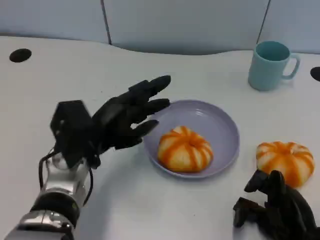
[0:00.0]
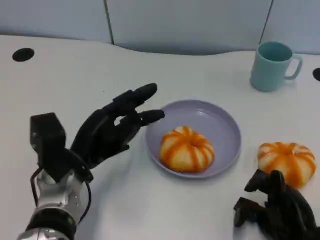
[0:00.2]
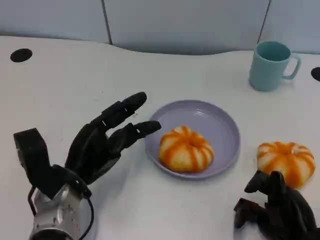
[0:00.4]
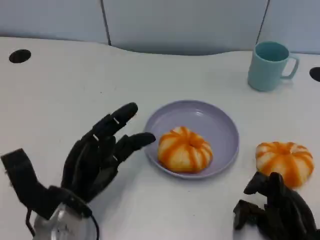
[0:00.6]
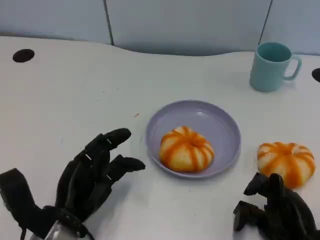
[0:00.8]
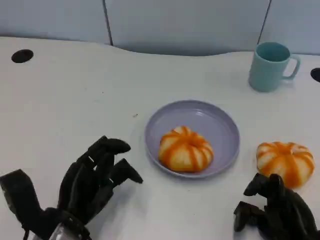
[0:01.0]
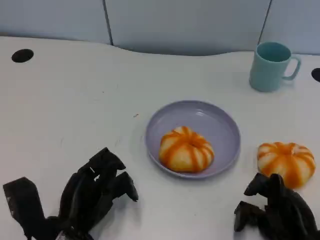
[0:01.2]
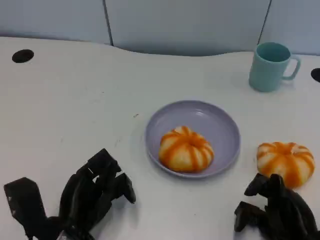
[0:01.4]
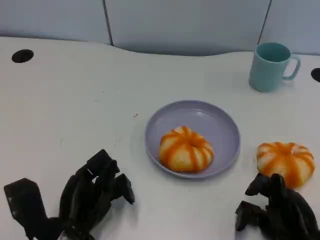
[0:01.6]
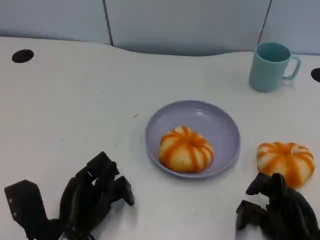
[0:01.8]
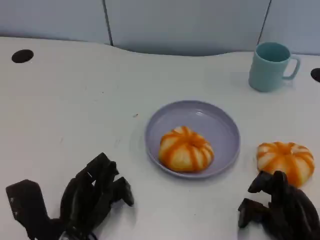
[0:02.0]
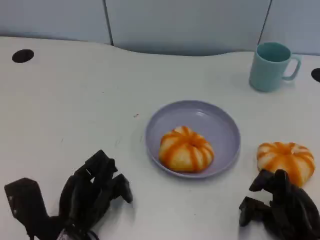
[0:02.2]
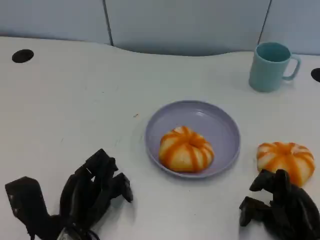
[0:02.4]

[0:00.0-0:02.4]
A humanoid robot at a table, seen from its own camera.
Task of the whole recording: Grasp the bread from the table and place it into the plate.
0:00.0 to 0:01.2: The left hand heads backward and downward, covering some 10 cm.
0:01.2 to 0:02.4: The hands make only small movements.

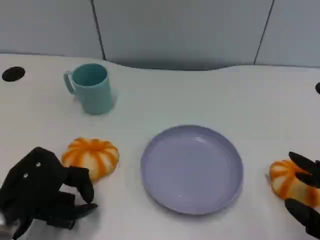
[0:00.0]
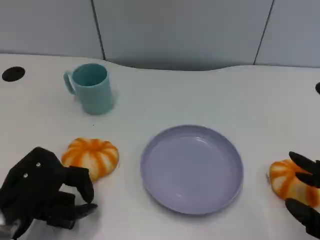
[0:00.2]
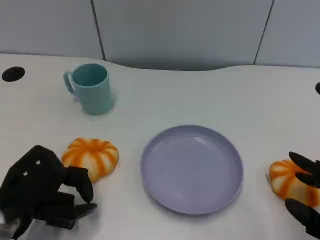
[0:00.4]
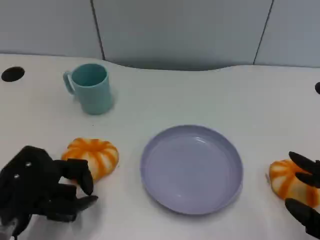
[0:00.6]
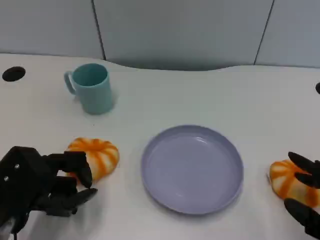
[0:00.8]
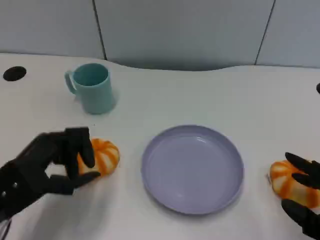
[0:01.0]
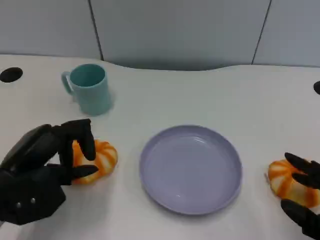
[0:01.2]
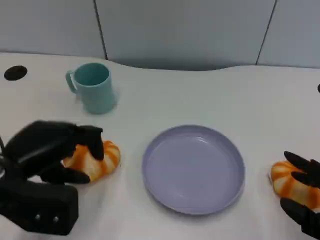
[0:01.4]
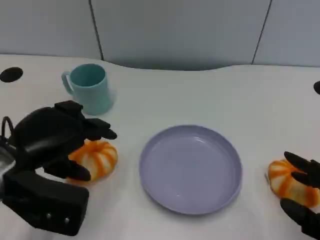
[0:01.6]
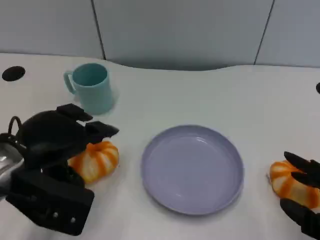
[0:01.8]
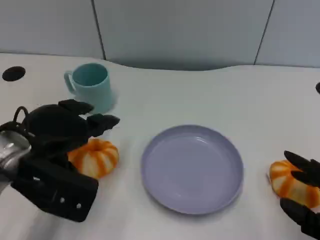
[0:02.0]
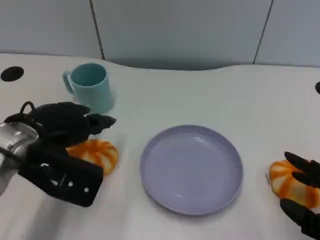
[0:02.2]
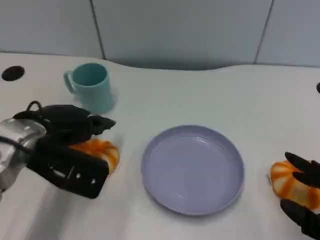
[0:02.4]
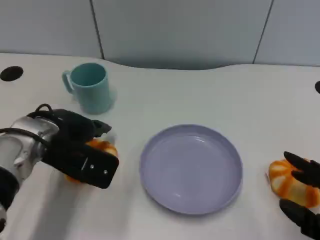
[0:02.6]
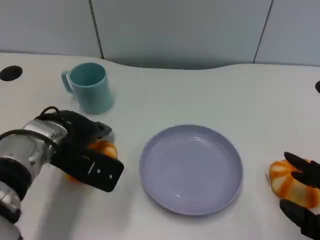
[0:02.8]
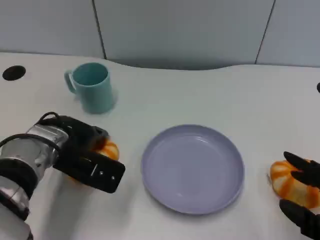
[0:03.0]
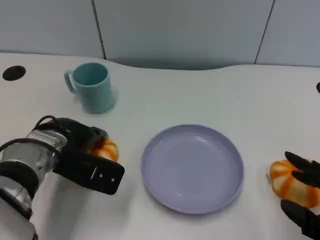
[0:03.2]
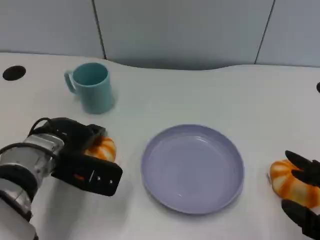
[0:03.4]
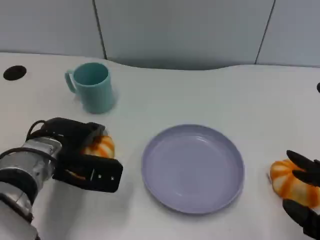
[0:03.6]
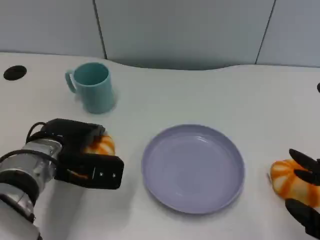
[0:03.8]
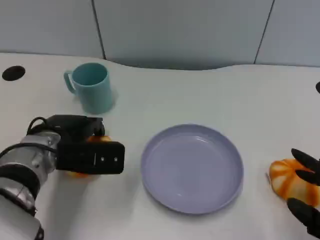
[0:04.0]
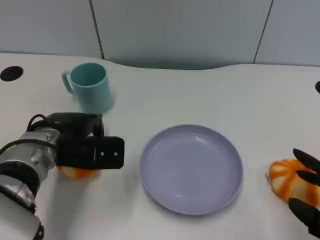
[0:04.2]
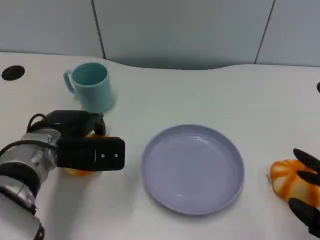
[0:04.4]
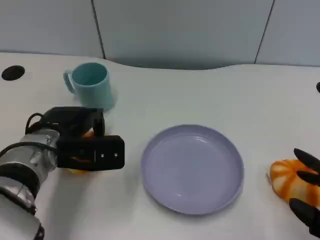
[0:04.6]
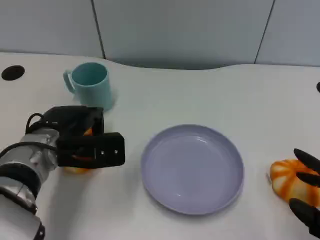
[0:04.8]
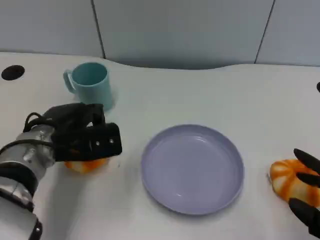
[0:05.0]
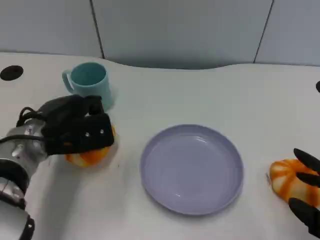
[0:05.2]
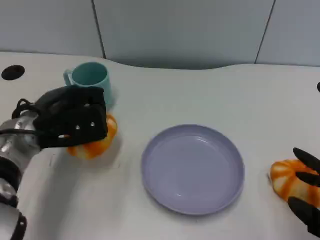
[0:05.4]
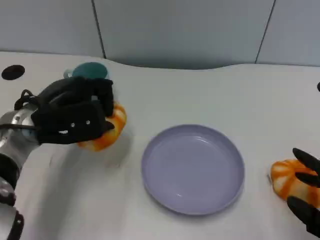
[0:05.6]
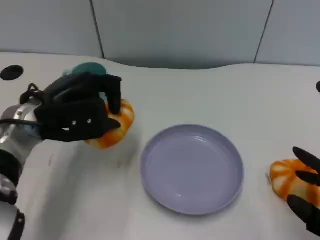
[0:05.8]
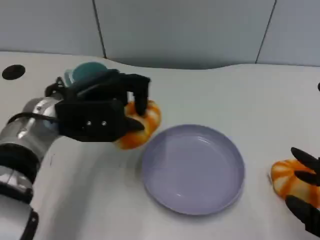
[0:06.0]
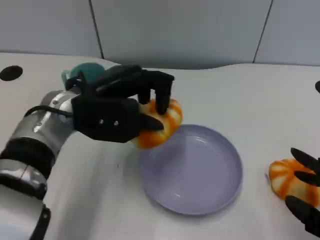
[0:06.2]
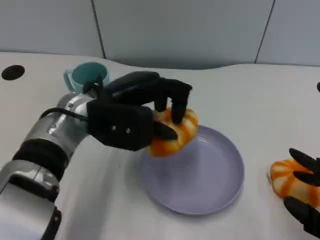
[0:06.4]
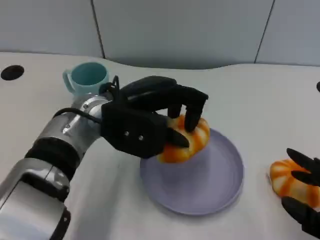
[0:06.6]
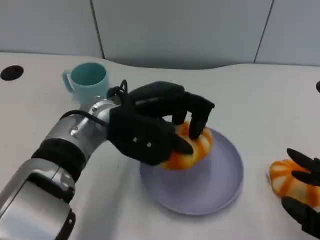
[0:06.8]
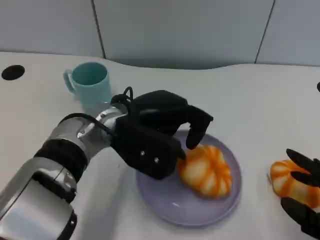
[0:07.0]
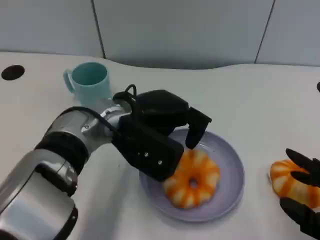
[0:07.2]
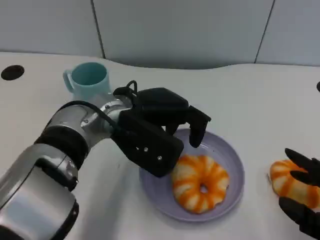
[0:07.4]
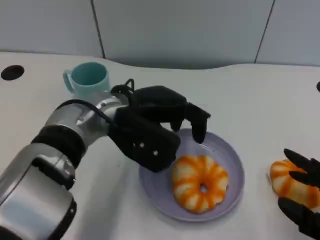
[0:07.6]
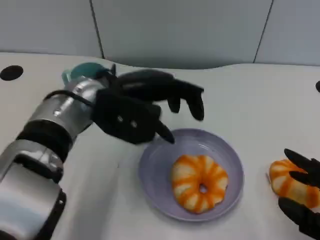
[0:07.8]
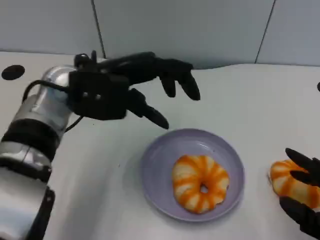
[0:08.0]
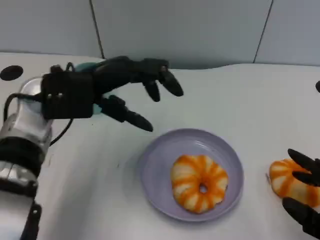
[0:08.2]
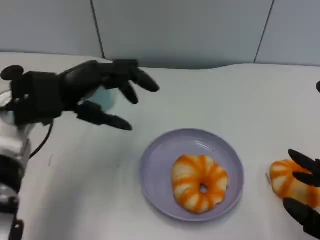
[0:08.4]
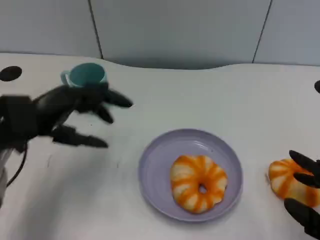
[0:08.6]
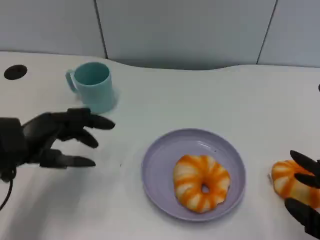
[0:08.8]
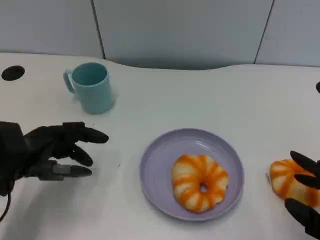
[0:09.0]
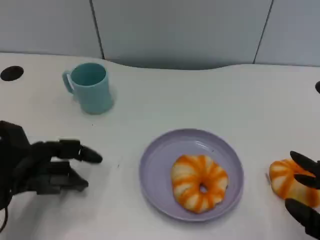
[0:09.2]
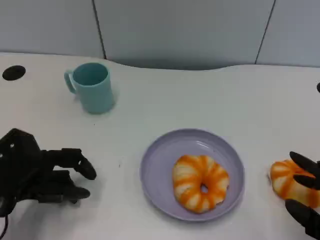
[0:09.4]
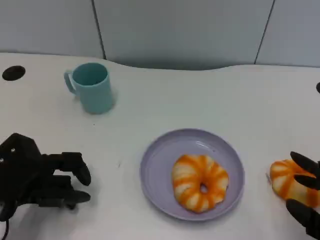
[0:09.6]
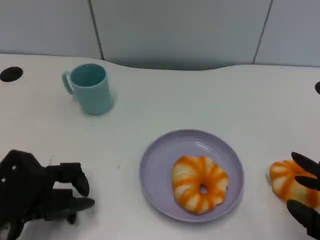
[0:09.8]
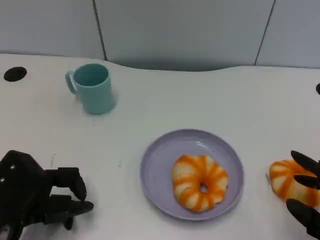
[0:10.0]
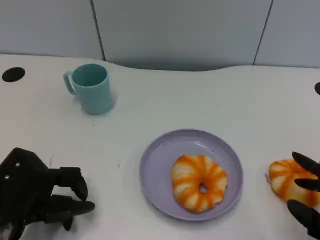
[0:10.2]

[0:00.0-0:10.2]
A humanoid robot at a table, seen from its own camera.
Task of the whole recording: Grasp the bread from the table and place it into the plate.
0:00.0 to 0:01.4: The left hand heads upward, covering some 5 cm.
0:01.4 to 0:03.0: The left hand shifts some 10 cm forward and to the right.
0:04.4 to 0:05.8: The left hand moves upward, approximately 5 cm.
0:05.8 to 0:07.2: The left hand goes approximately 10 cm to the right.
0:07.2 to 0:08.8: The left hand is displaced to the left by some 20 cm.
0:08.8 to 0:10.2: The left hand is displaced backward by roughly 5 cm.

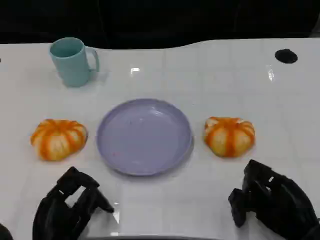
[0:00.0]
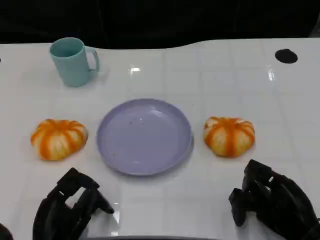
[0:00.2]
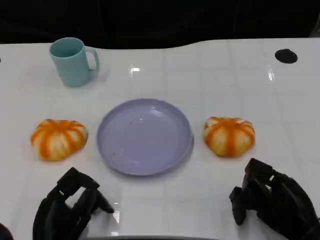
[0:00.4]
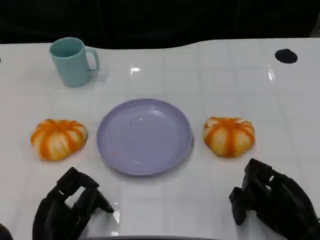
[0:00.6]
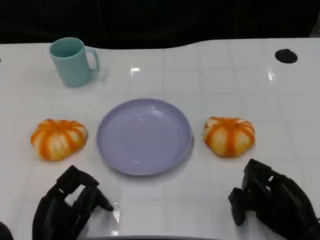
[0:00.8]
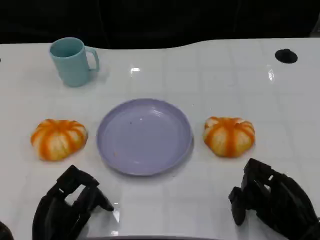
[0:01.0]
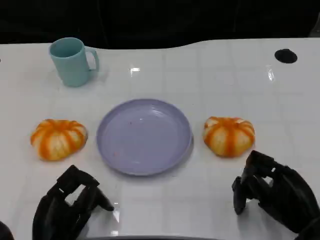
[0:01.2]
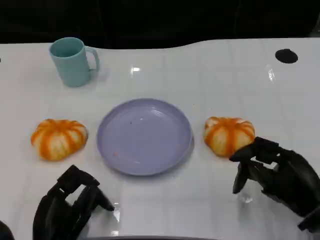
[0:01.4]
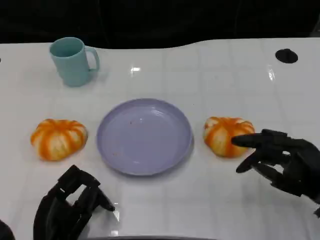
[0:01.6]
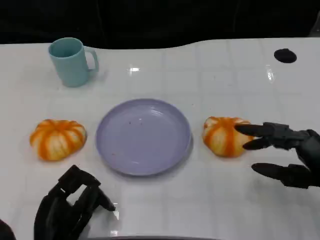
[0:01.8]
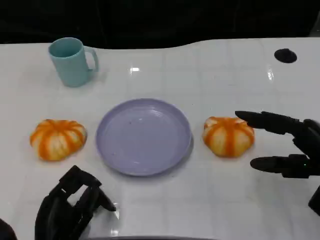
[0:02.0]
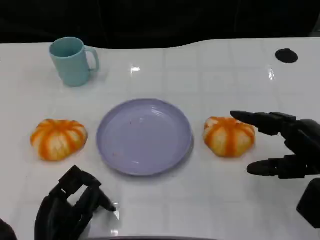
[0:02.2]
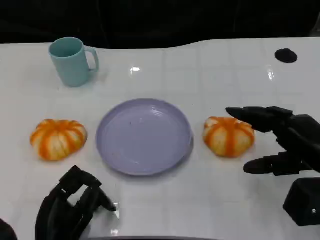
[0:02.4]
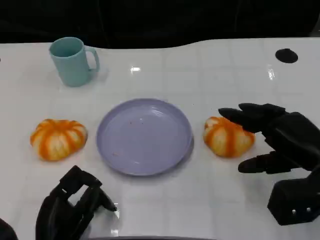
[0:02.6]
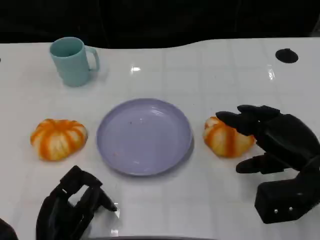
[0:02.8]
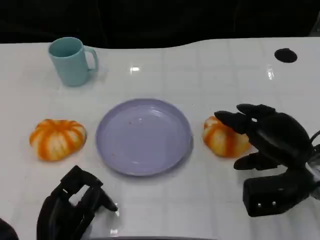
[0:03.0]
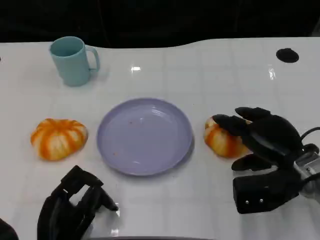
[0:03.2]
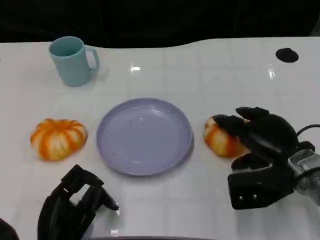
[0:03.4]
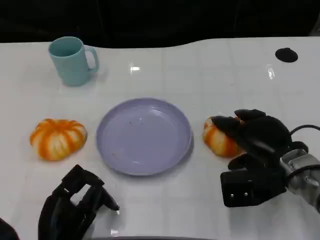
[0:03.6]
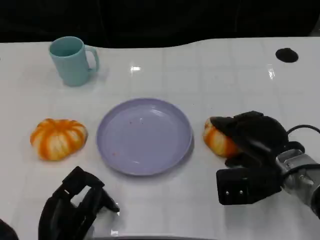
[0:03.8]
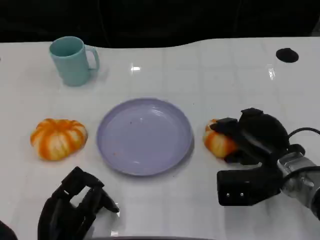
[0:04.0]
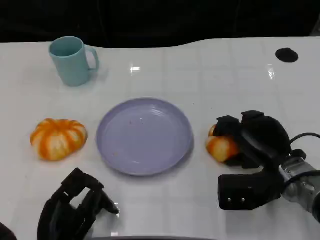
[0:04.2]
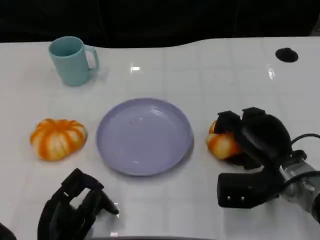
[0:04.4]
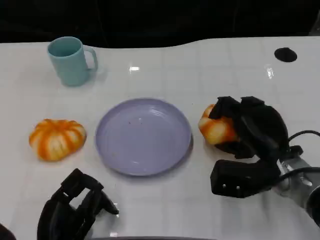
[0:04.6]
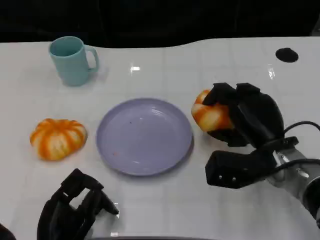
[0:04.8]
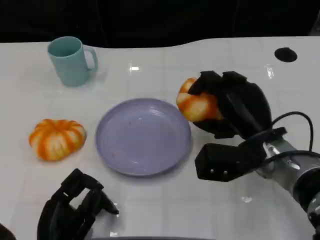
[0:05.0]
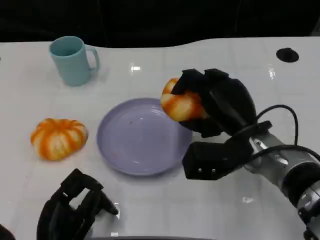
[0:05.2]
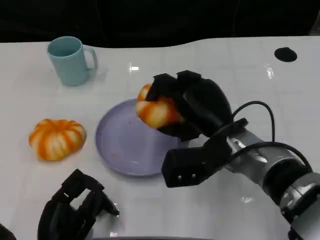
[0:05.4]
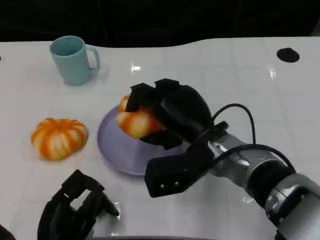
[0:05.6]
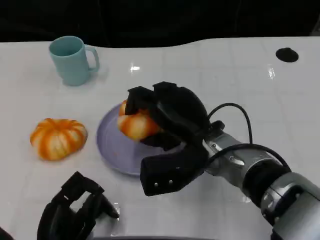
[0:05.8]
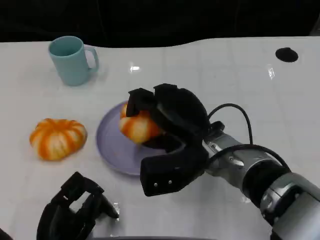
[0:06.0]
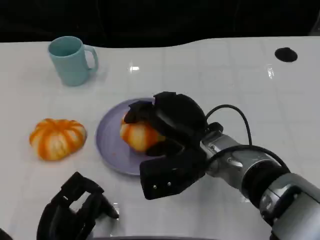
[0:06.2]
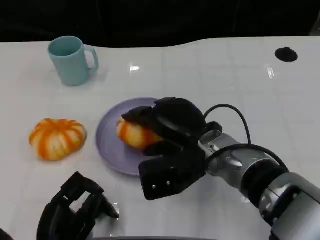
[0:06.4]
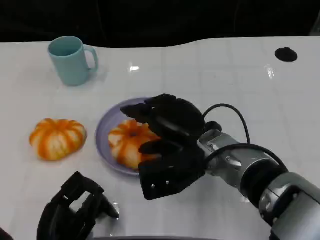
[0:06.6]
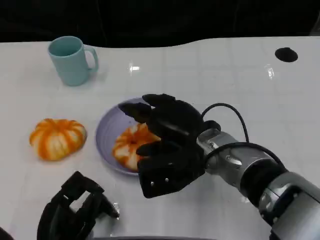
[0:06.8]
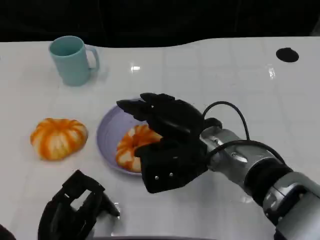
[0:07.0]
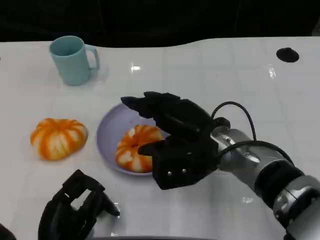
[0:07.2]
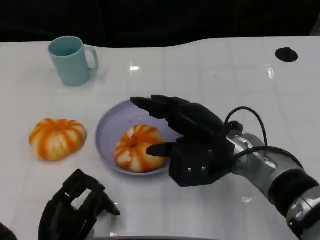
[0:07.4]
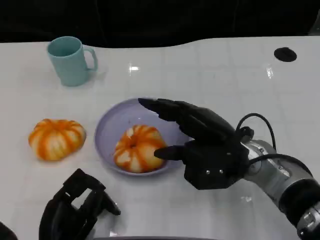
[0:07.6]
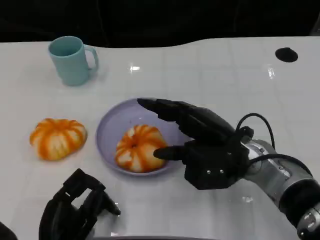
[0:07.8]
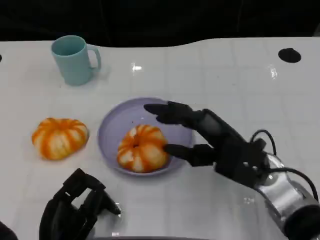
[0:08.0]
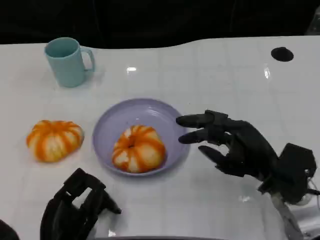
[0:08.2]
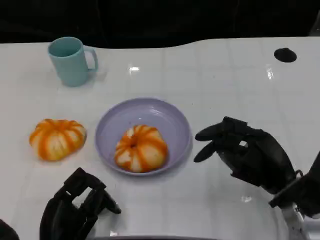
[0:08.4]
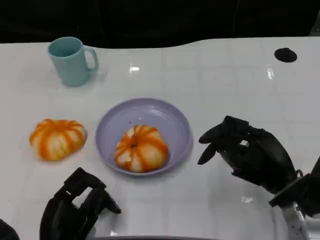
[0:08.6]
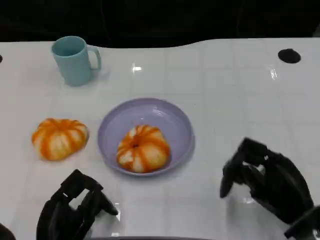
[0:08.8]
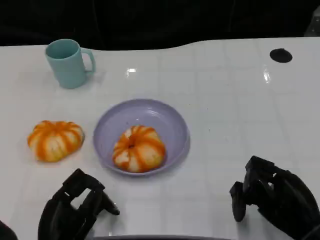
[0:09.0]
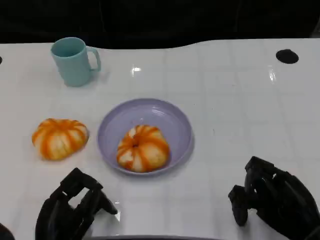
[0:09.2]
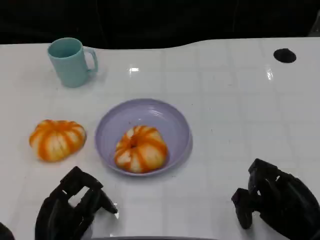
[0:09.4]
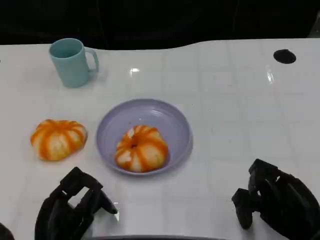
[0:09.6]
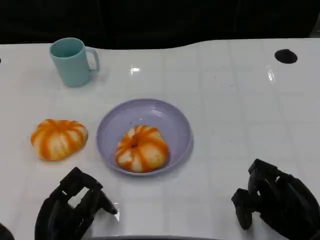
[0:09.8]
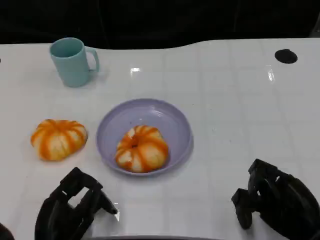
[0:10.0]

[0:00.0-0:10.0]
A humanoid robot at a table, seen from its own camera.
Task of the whole recording: Grasp the bread from the table and place it into the plate.
0:01.4 to 0:02.8: The right hand heads forward, covering roughly 5 cm.
0:02.8 to 0:04.2: The right hand changes place by approximately 5 cm.
0:04.2 to 0:05.8: The right hand is displaced to the left and upward by roughly 15 cm.
0:05.8 to 0:07.2: There are only small adjustments of the hands.
0:07.2 to 0:08.6: The right hand moves to the right, backward and downward, roughly 15 cm.
0:08.6 to 0:10.0: The right hand moves backward, about 5 cm.
